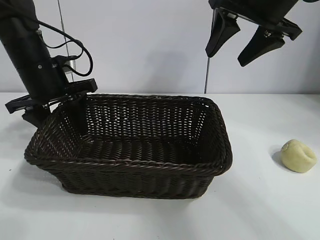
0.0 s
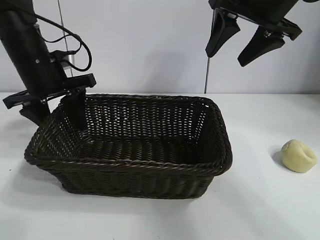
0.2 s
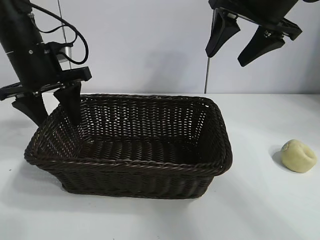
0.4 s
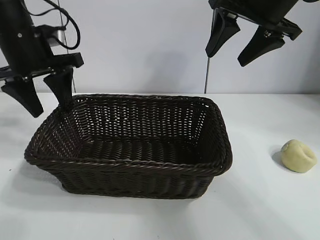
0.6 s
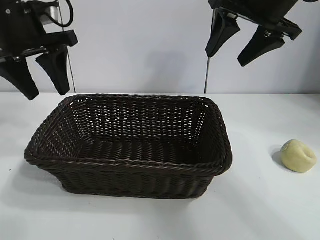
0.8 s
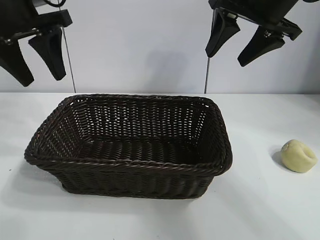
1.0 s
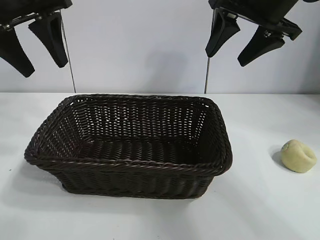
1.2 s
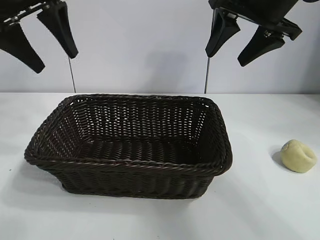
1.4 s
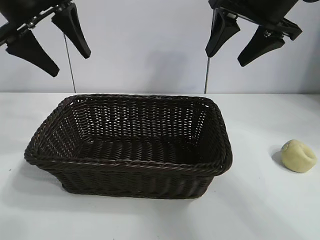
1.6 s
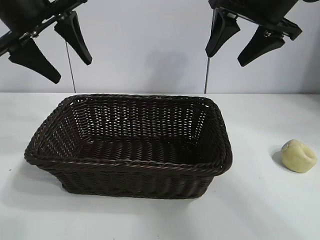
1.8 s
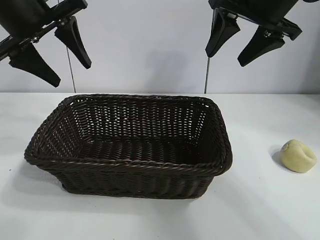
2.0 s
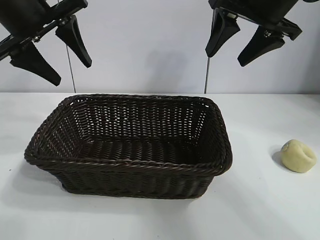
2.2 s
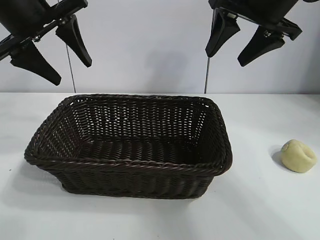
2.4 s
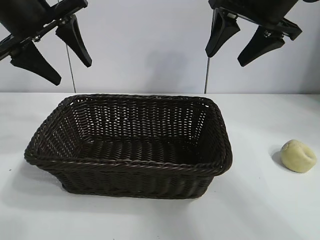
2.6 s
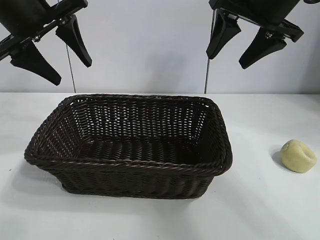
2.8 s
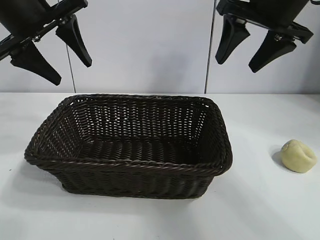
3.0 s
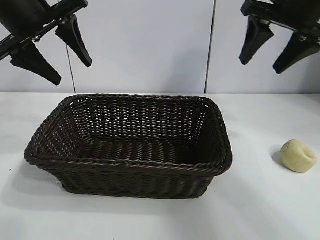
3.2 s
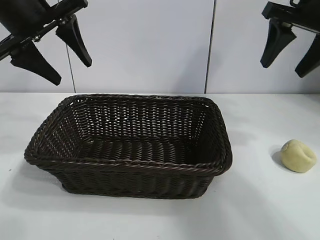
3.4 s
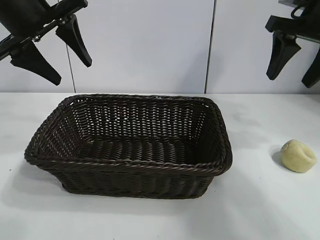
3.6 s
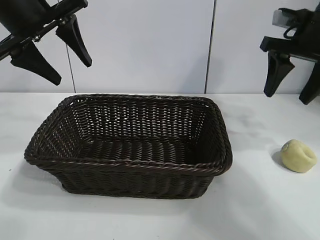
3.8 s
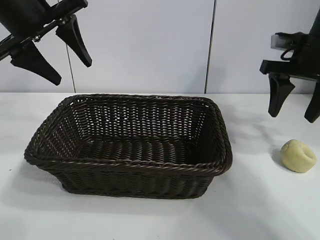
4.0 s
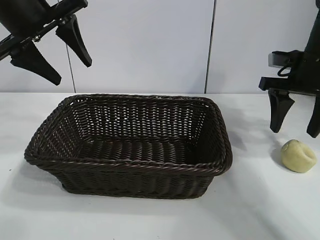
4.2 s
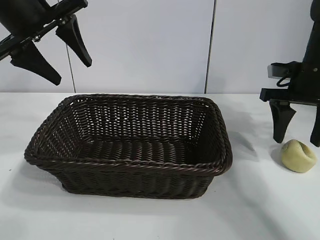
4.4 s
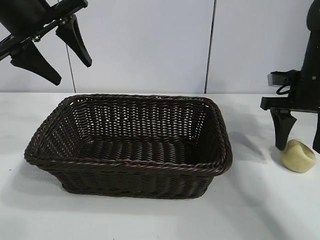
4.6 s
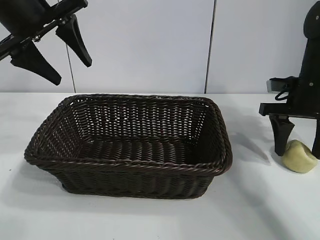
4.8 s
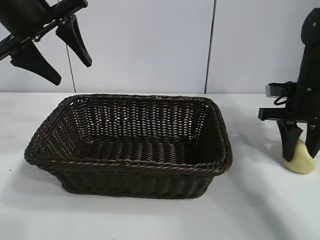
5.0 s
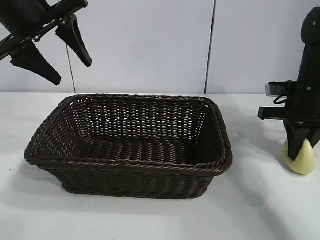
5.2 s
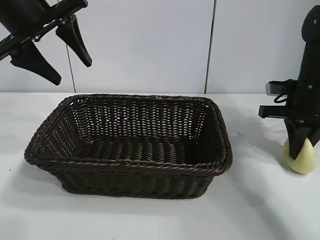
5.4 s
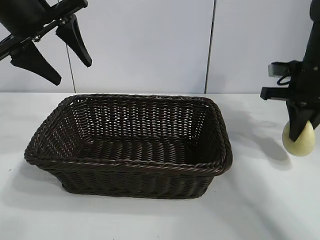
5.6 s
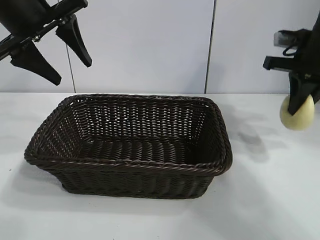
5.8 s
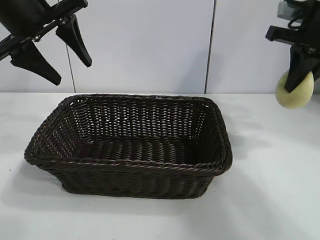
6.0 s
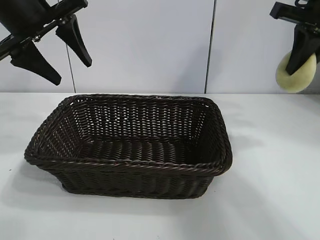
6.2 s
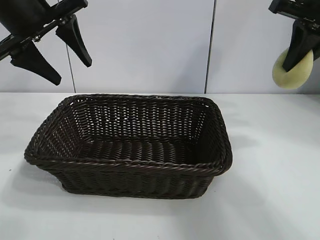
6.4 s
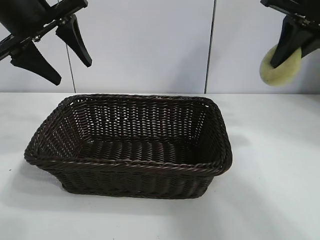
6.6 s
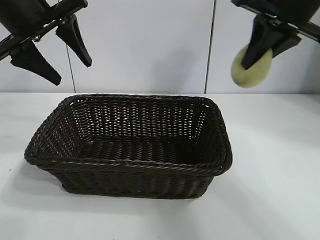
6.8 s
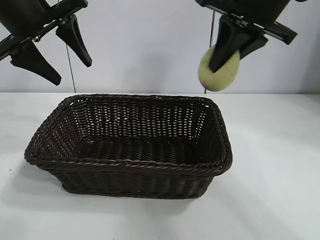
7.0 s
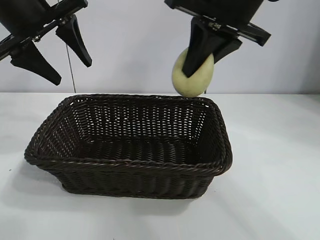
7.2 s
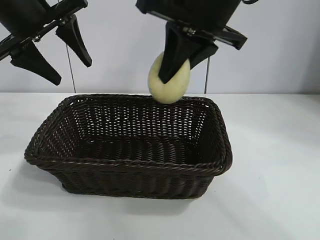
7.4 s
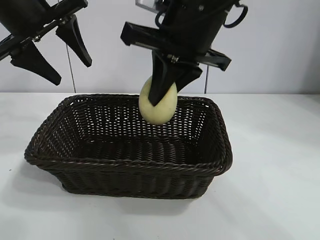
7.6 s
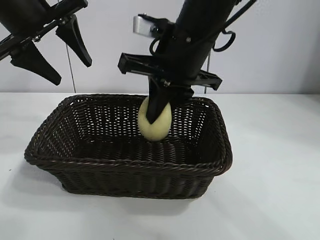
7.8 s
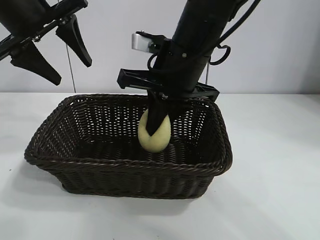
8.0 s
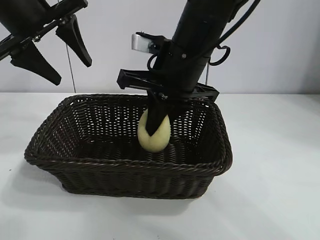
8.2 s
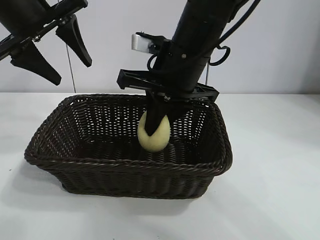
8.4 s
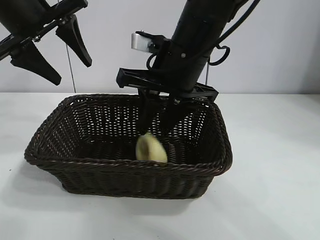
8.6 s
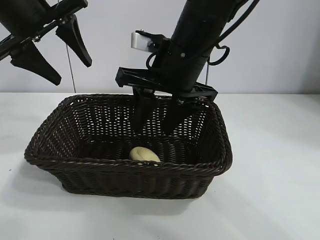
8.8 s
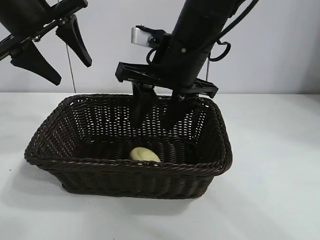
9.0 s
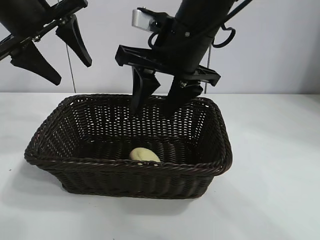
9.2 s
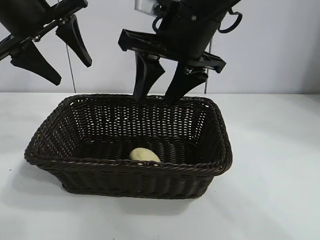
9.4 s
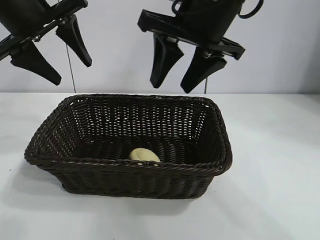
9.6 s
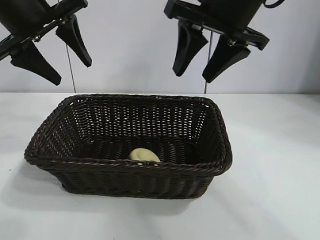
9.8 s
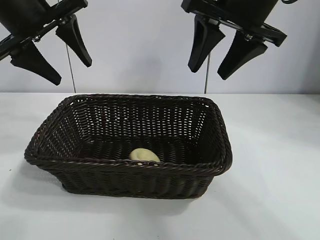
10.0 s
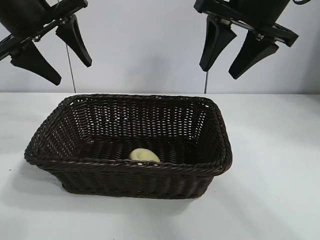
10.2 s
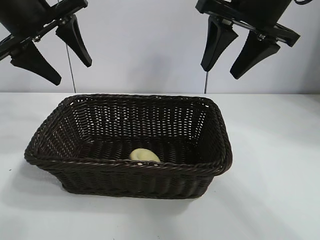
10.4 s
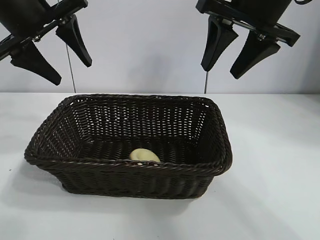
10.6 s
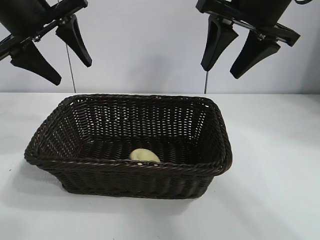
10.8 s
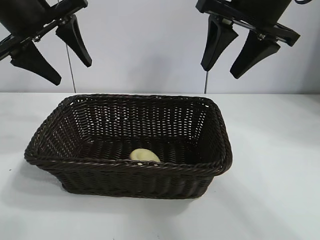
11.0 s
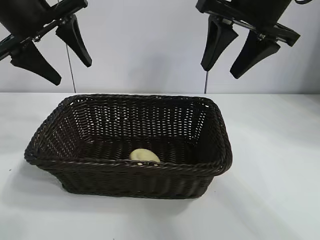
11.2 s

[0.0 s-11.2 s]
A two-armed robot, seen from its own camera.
Task of the whole recording: pick up the egg yolk pastry and put it into the basket.
Step, 0.2 to 5.2 s: Grasp egg yolk pastry with right gripper.
Step, 5.4 to 8.8 s: Place the egg yolk pastry in the basket with right gripper.
